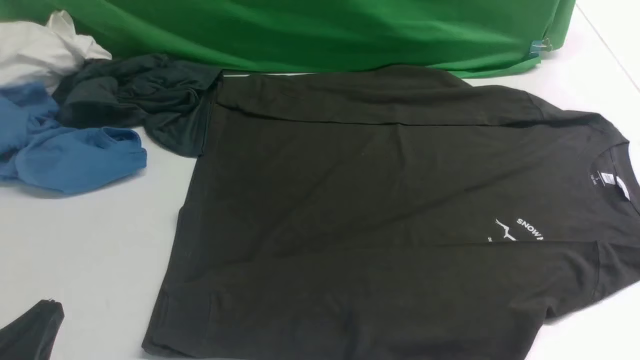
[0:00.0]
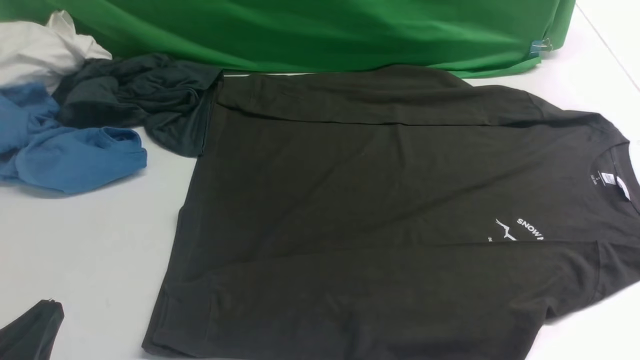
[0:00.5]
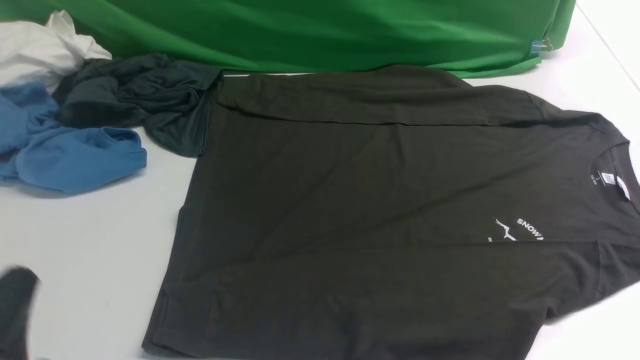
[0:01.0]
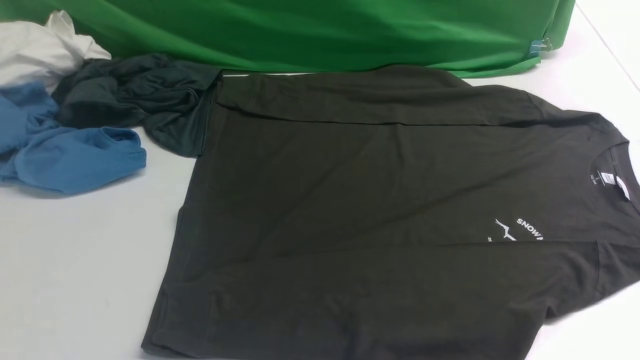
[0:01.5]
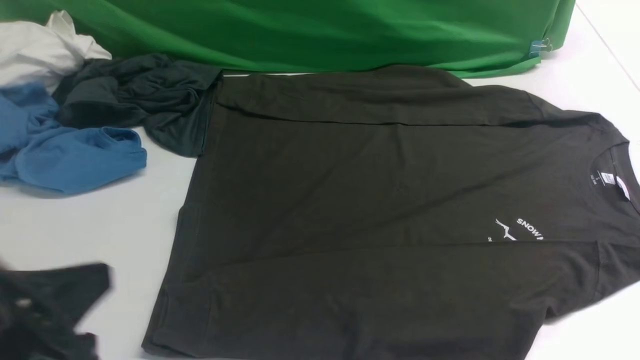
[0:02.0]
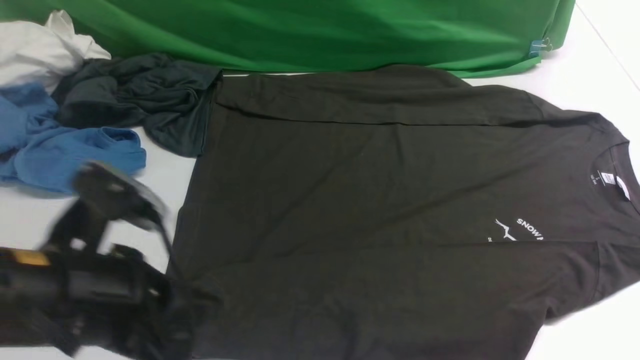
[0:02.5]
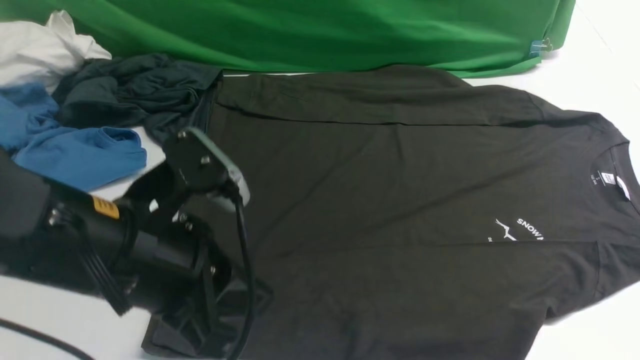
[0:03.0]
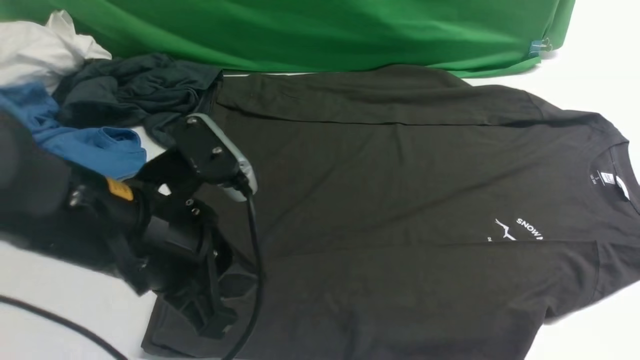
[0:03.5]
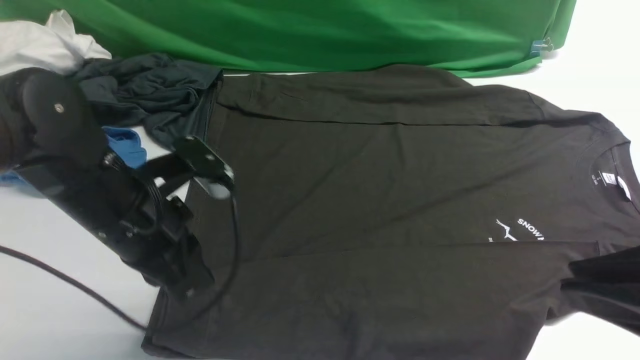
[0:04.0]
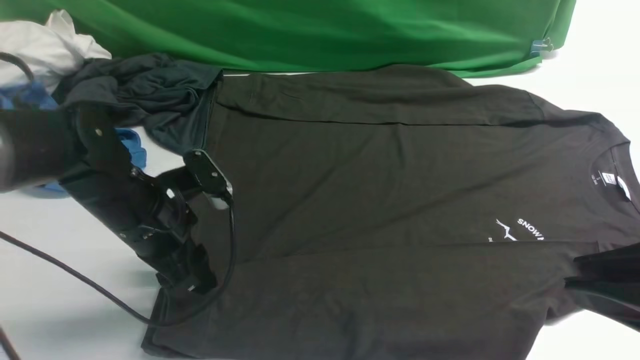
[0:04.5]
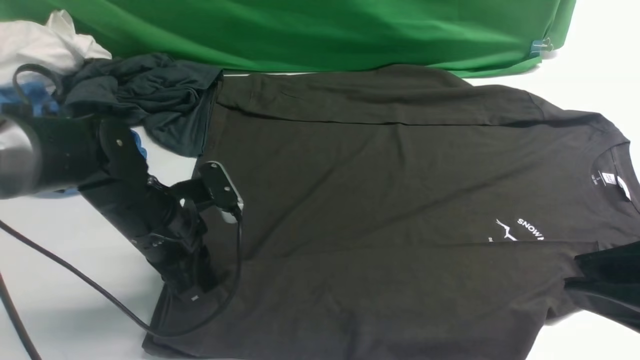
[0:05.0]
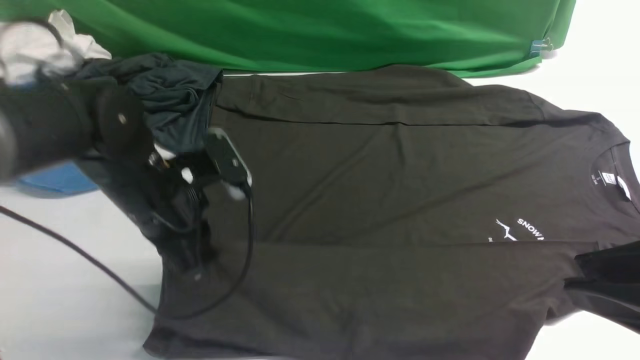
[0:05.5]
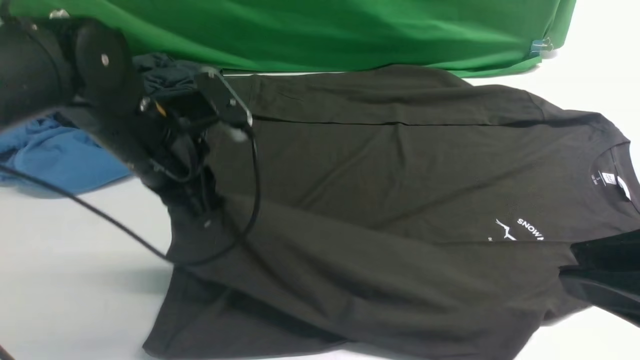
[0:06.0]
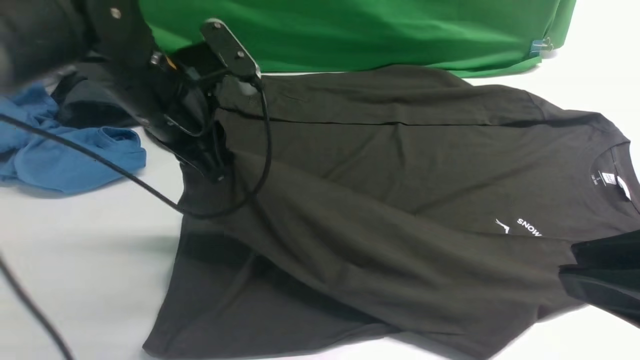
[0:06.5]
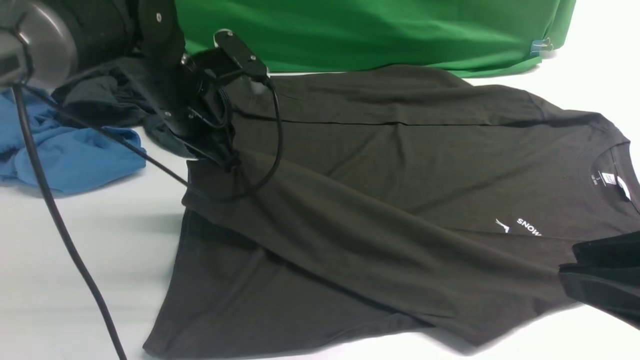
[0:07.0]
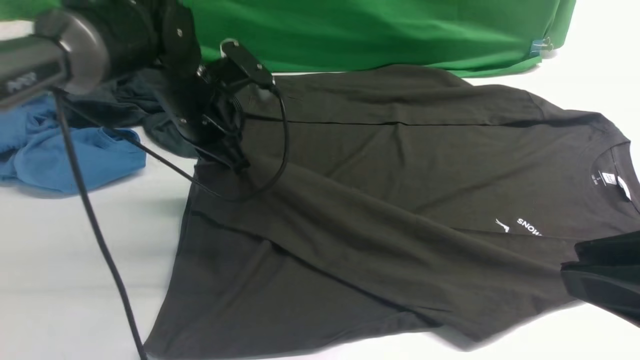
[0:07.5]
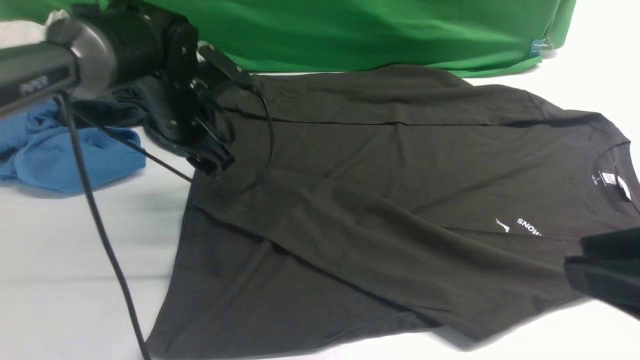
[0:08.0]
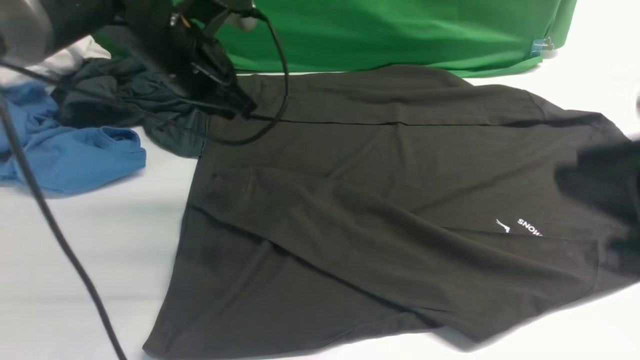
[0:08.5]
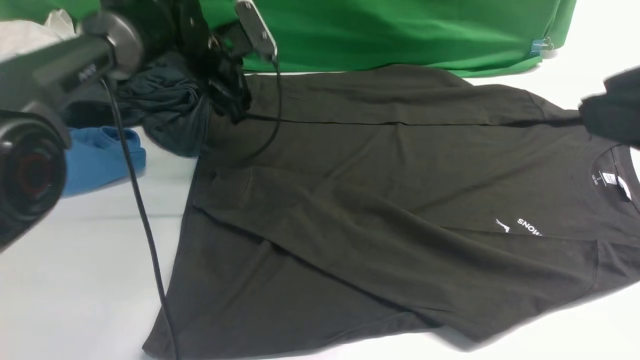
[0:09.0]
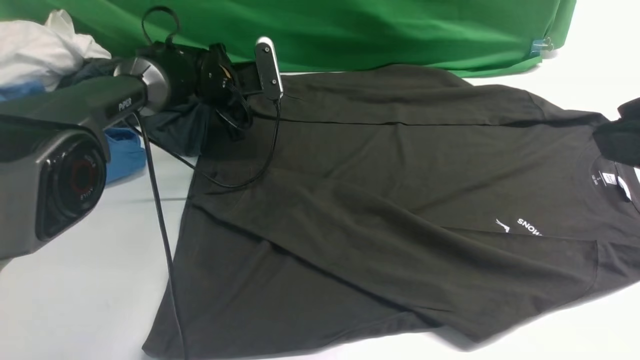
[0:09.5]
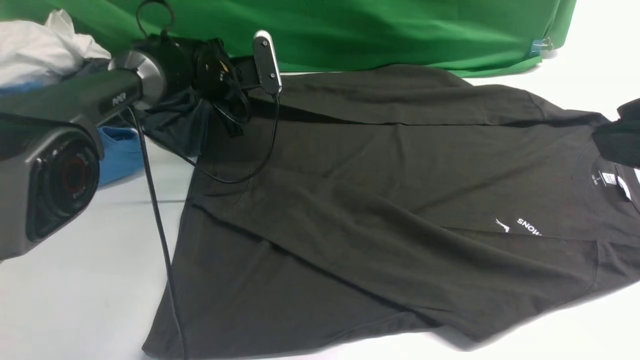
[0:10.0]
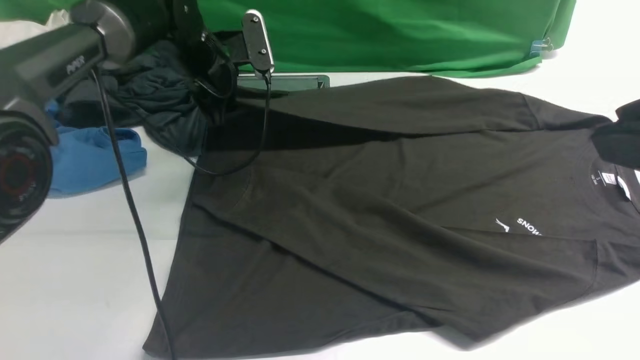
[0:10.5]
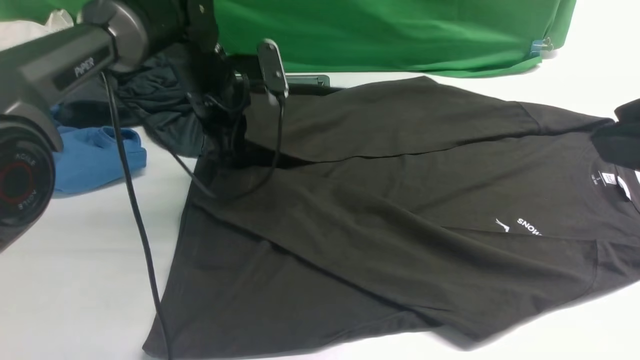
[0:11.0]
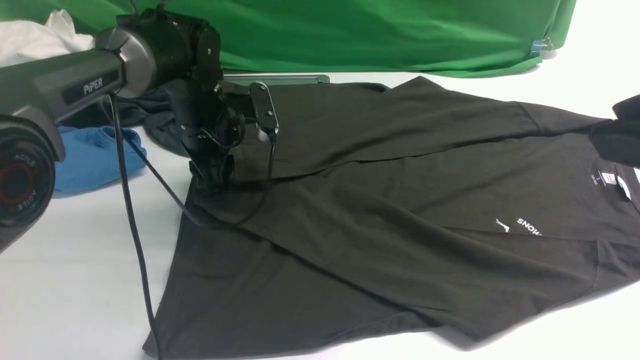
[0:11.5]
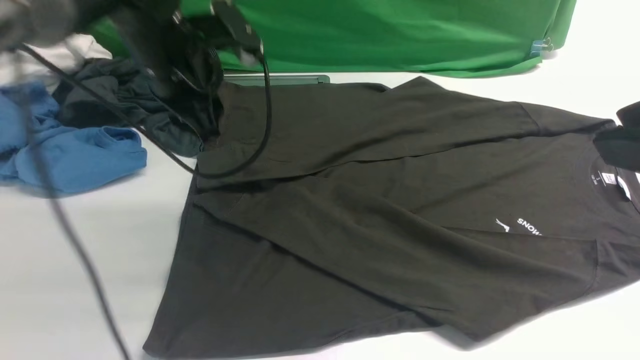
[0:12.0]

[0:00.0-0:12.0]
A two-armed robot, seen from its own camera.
Step, 0:00.0 to 0:05.5: use the left arm to clamp the cuff closest to it.
Step, 0:06.0 to 0:08.0: use the left arm to drag and place the cuff at the centered position on the left edge of the fabric.
Step, 0:08.5 to 0:10.0: use the left arm to clamp the cuff farthest from it.
Step, 0:10.5 to 0:11.5: use the left arm to drag and drop the cuff onto the cuff closest to the left arm.
0:00.0 to 0:02.0: The left gripper moves upward, some 10 cm.
0:02.0 to 0:04.0: The left gripper heads forward, covering roughly 15 cm. The right gripper travels upward and to the left by roughly 20 cm.
0:04.0 to 0:06.0: The left gripper goes approximately 5 cm forward, reaches roughly 5 cm downward, then returns, and opens and closes again.
0:06.0 to 0:08.0: The left gripper travels forward by roughly 10 cm, and opens up.
0:08.0 to 0:10.0: The left gripper goes some 15 cm forward and downward, and closes. Meanwhile the right gripper travels upward by approximately 5 cm.
0:10.0 to 0:12.0: The left gripper heads backward and upward, covering about 20 cm, and opens.

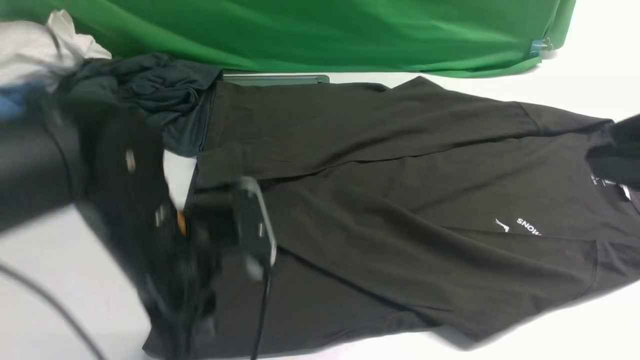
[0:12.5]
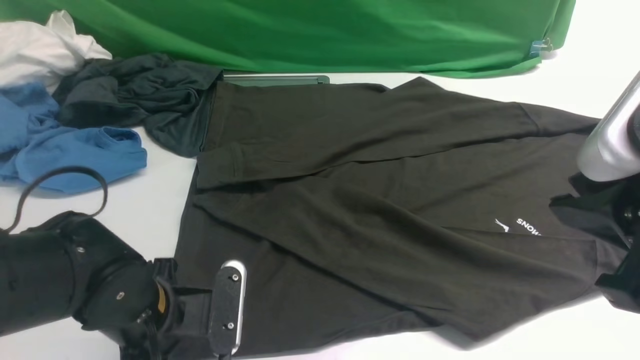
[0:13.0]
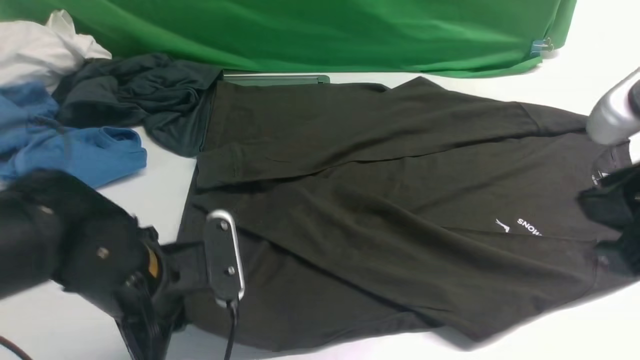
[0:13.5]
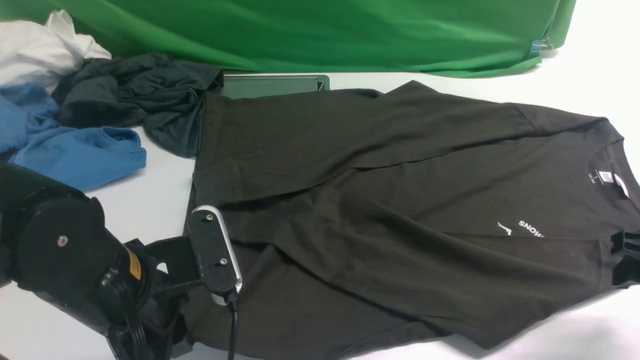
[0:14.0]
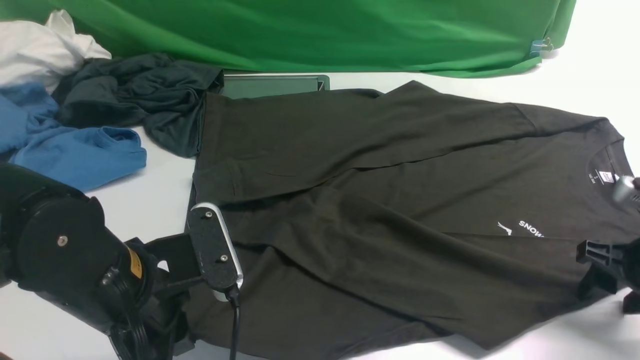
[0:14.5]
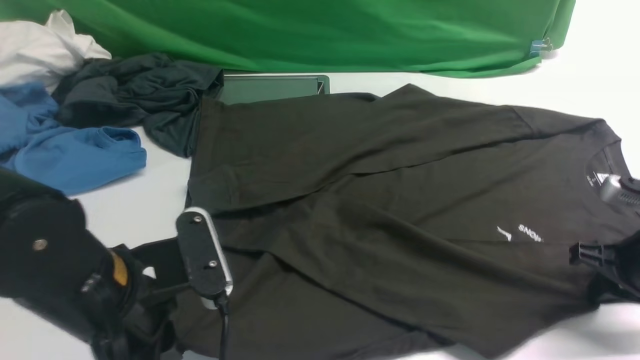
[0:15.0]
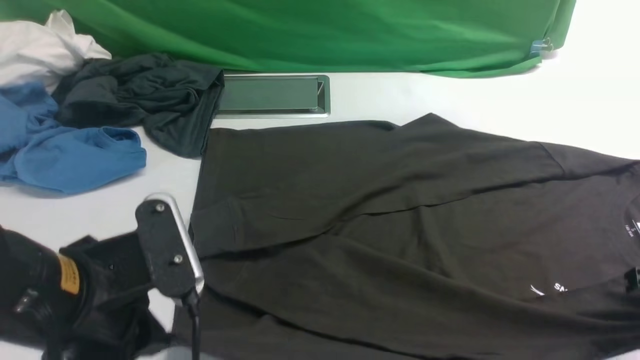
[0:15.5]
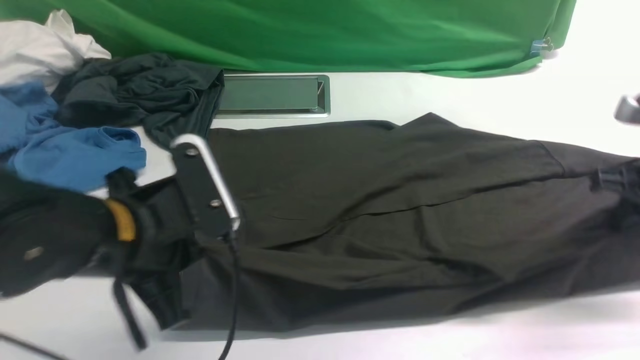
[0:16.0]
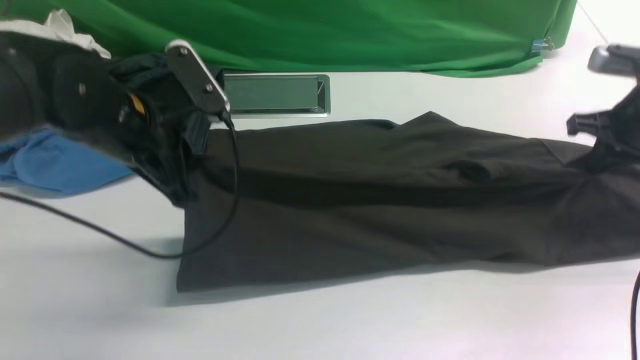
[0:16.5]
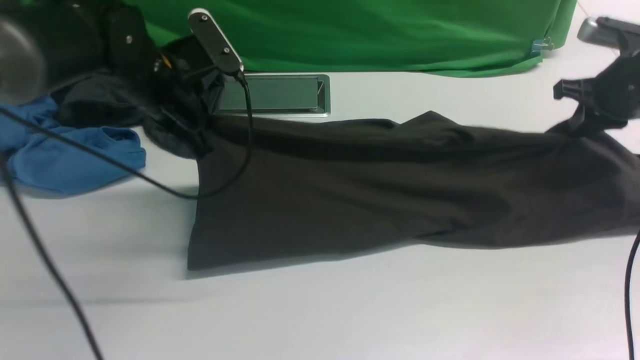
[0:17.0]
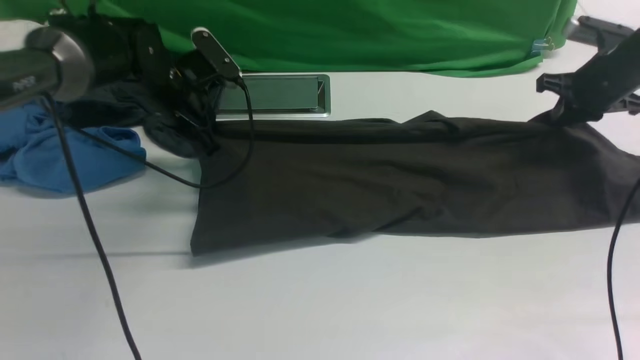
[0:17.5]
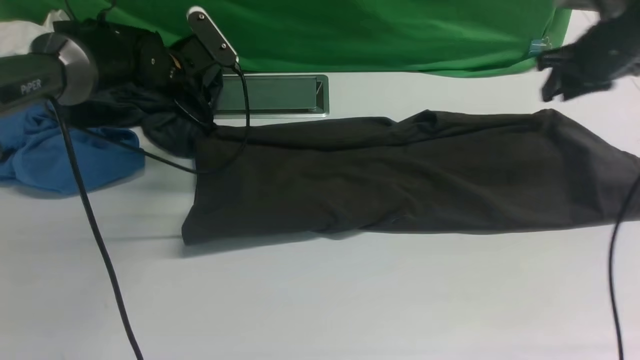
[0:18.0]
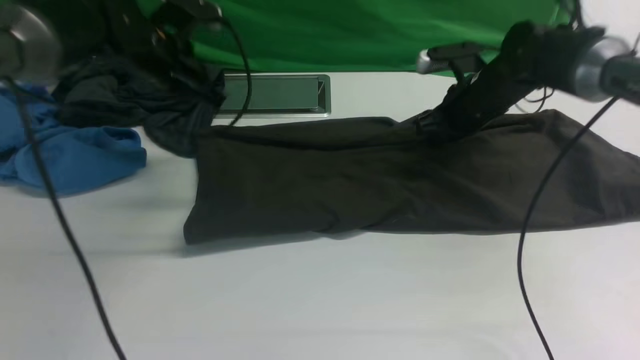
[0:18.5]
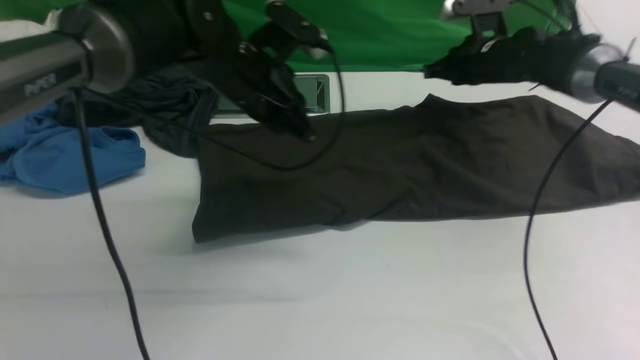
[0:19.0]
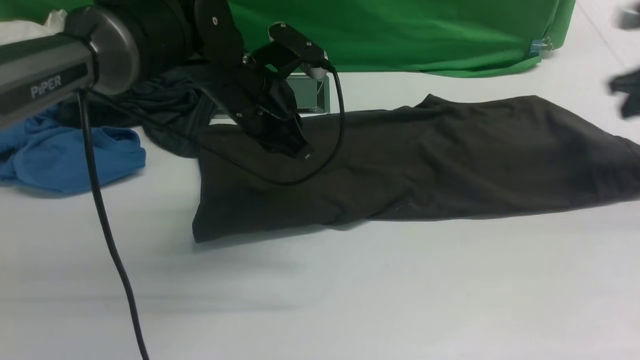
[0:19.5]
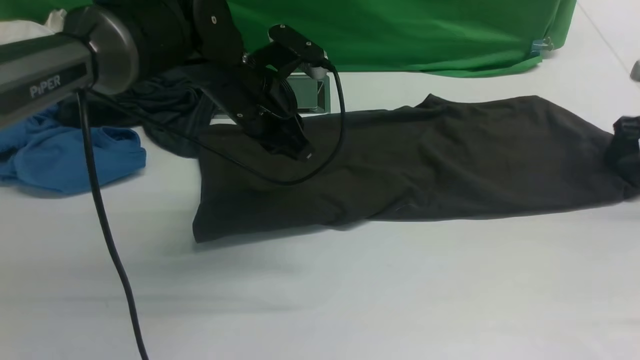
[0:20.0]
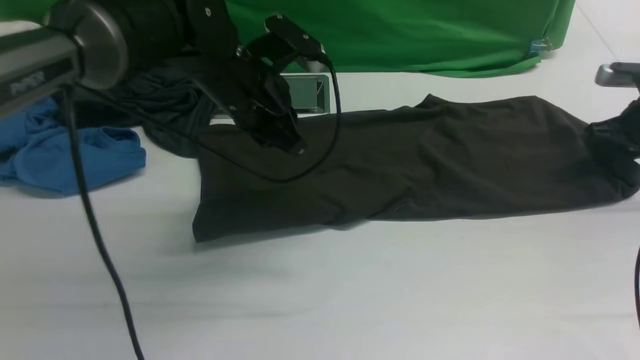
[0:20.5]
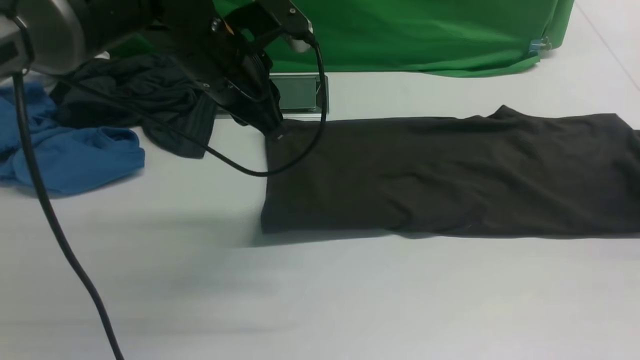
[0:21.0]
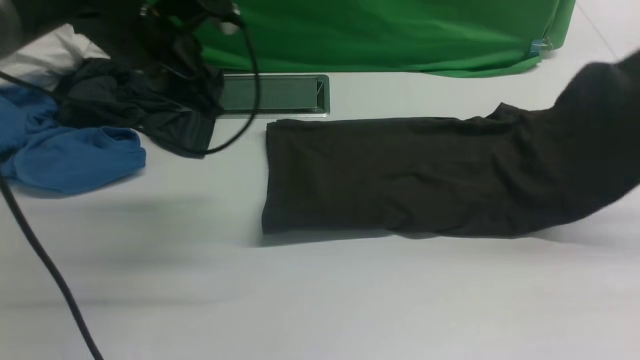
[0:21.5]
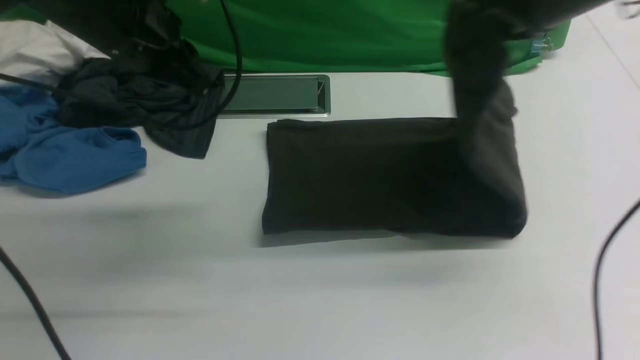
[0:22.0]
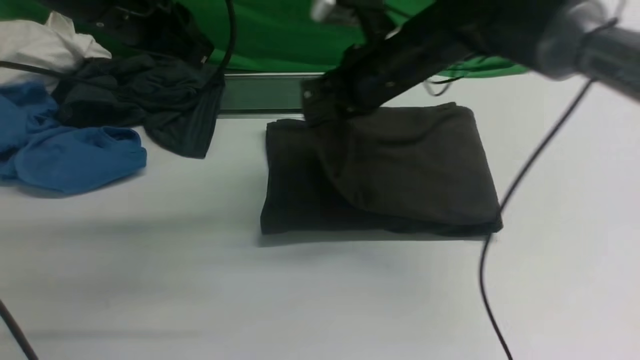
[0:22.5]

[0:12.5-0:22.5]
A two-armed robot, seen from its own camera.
Step, 0:12.5 to 0:15.0: use both arms simultaneously to clamp the lower edge of the clothing fabric.
Step, 0:15.5 to 0:19.0: use both arms to drag the lower edge of the fabric forward and fold it over the upper edge.
Step, 0:19.5 to 0:20.5: use the right arm to clamp the right edge of the fabric.
0:12.5 to 0:14.5: The left gripper closes its fingers, while the right gripper travels downward, to the right and forward by approximately 30 cm, and opens up.
0:14.5 to 0:16.5: The right gripper moves forward and upward, about 15 cm, and closes up. The left gripper goes roughly 15 cm forward.
0:16.5 to 0:18.5: The left gripper moves forward, some 10 cm; the right gripper travels to the left, forward and downward by some 20 cm, and opens, then closes once more.
0:18.5 to 0:20.5: The right gripper shifts about 25 cm to the right, and opens, while the left gripper travels to the right and backward by roughly 10 cm.
0:20.5 to 0:22.5: The left gripper shifts some 10 cm upward and to the left; the right gripper goes roughly 35 cm to the left.
